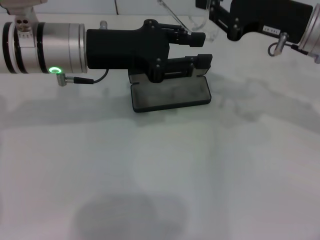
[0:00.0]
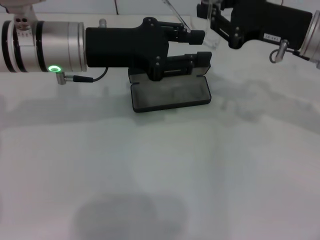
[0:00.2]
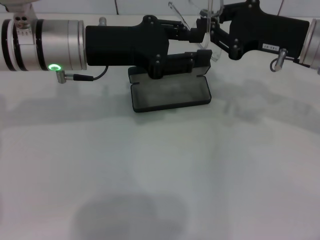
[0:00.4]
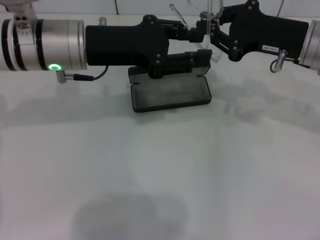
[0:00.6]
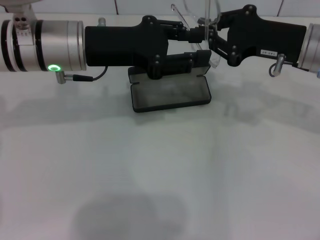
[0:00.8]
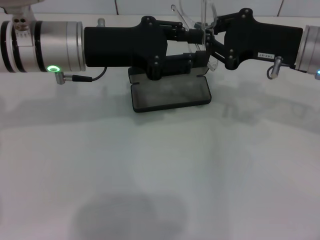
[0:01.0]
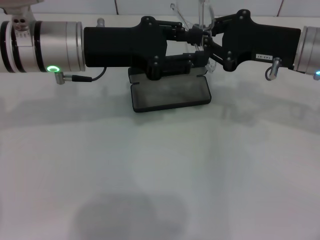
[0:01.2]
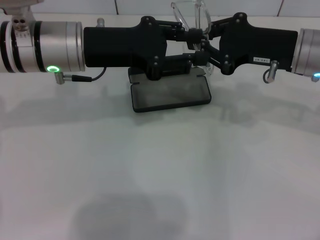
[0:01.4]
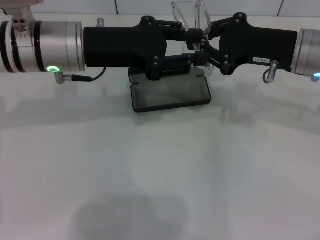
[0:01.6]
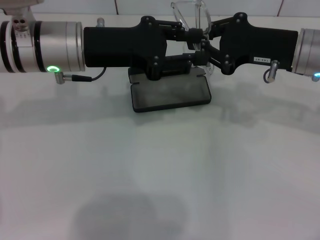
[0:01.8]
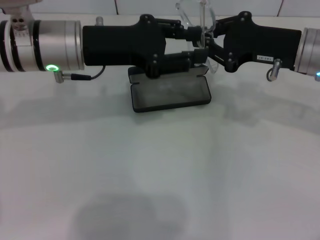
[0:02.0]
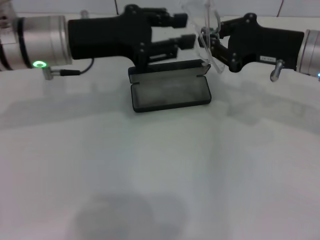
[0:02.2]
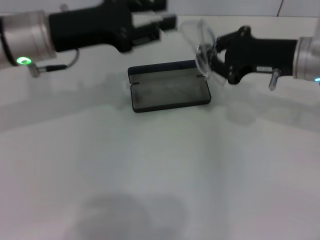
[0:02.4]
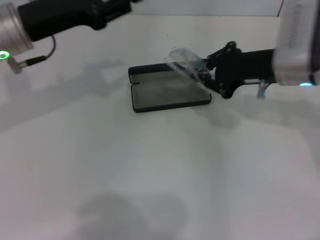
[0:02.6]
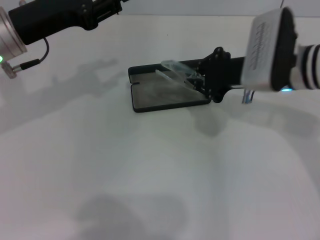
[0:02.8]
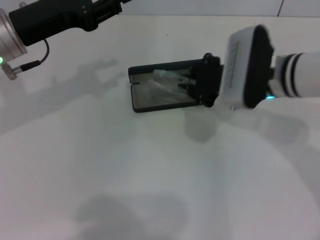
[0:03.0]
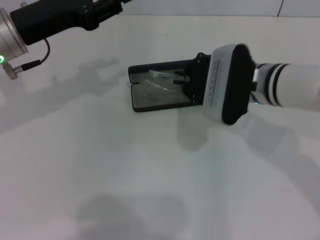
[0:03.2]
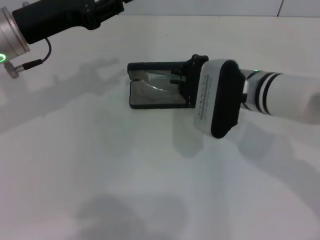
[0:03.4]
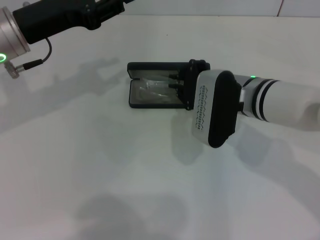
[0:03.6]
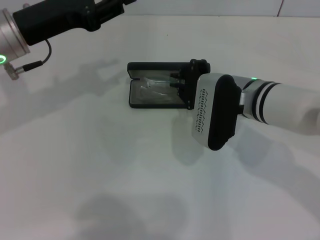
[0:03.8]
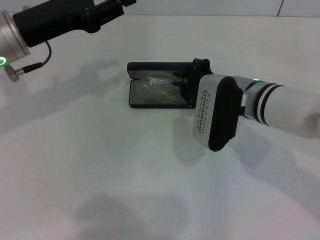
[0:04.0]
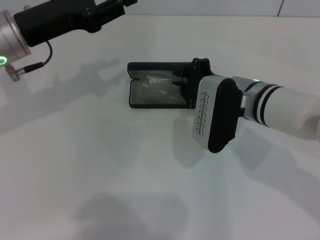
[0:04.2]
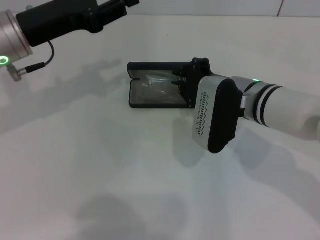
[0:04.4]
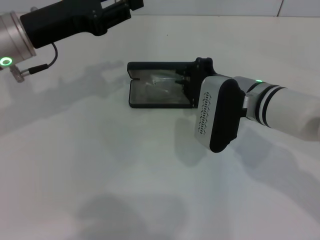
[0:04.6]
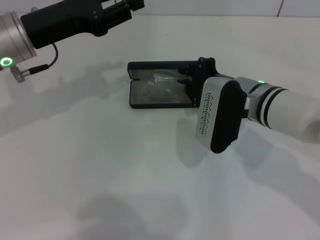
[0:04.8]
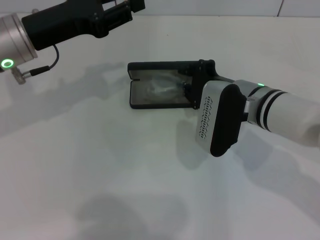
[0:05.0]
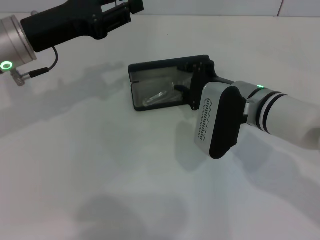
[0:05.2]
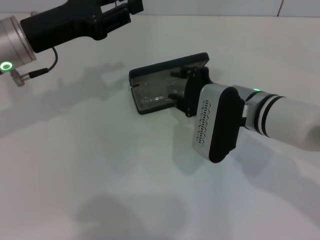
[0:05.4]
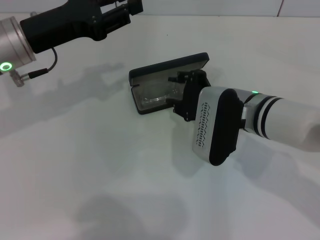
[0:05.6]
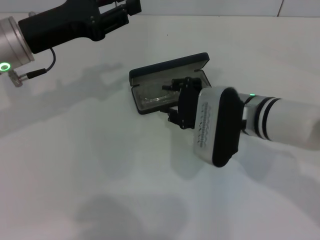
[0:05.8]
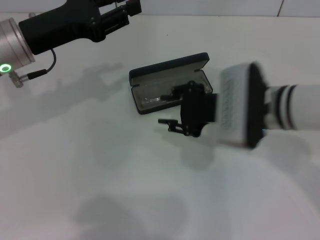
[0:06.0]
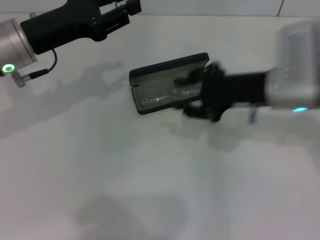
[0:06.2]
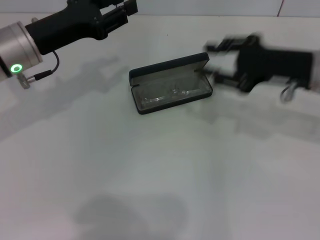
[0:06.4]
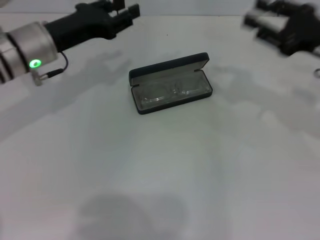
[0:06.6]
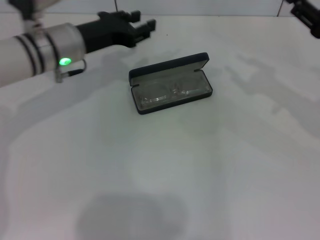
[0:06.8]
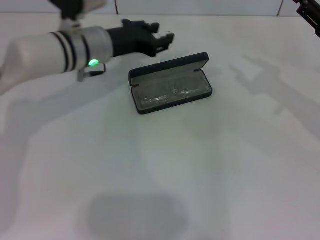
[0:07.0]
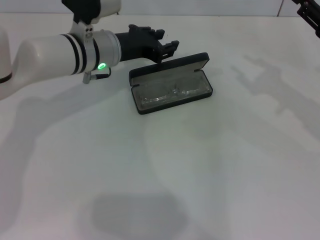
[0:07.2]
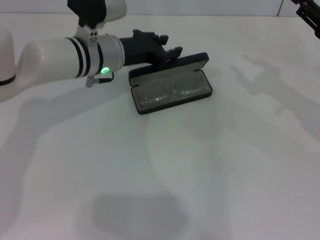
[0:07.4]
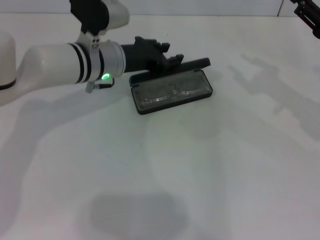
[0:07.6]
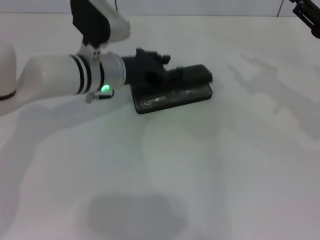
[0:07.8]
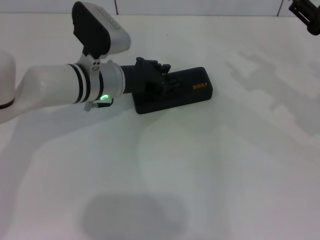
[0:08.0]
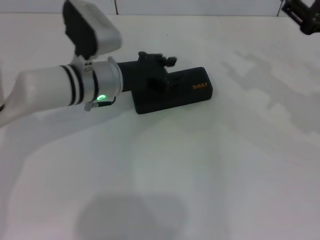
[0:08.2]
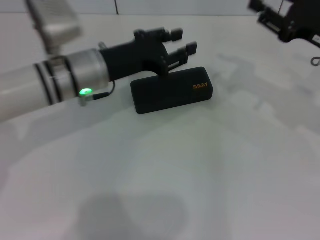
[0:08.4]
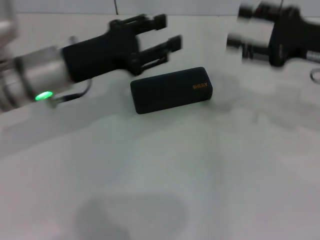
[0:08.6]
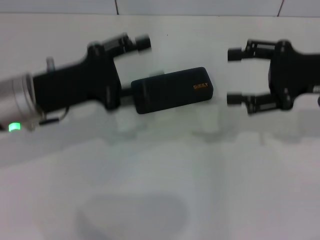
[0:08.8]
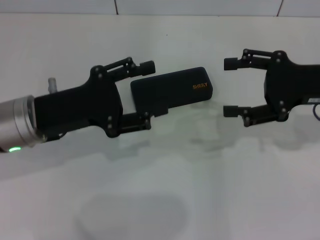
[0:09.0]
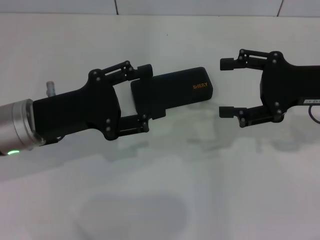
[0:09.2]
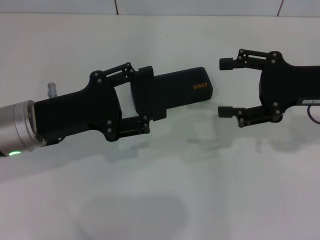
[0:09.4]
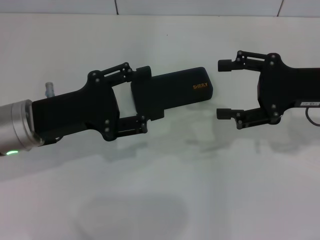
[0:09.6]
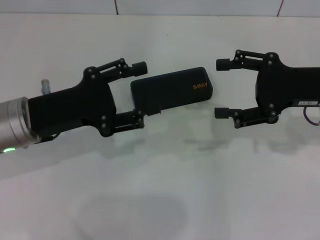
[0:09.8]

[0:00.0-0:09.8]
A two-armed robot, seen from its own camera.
Step, 0:01.8 to 0:05.4: Put the glasses into the case with your right hand.
Step, 0:05.6 to 0:08.0: Close the glasses case with your left hand.
0:00.0 to 0:01.4: The grippers make only small movements.
0:01.4 to 0:02.8: The left gripper goes roughly 5 cm to the left, while the right gripper moves about 5 cm.
0:02.8 to 0:04.2: The right gripper ends up roughly 5 cm from where it was.
0:04.2 to 0:05.6: The grippers stay close to where they were, moving slightly.
0:05.6 to 0:07.0: The right gripper moves to the right, some 20 cm. Meanwhile the left gripper moves to the right, forward and downward, some 10 cm.
0:07.0 to 0:08.4: The left gripper heads backward, covering about 5 cm.
0:08.4 to 0:09.8: The right gripper opens; the left gripper shifts some 10 cm backward and to the left, and opens up.
